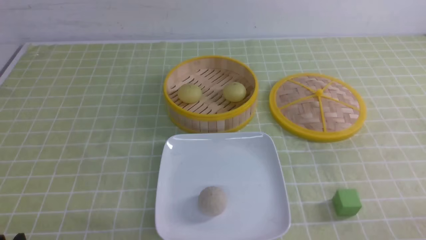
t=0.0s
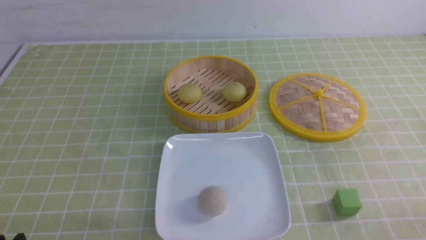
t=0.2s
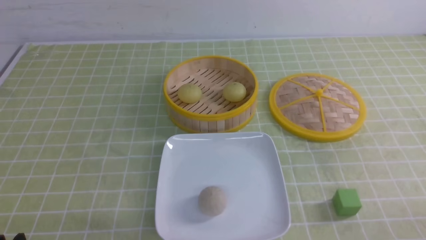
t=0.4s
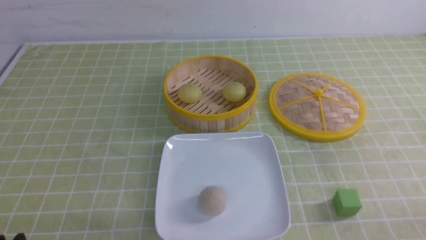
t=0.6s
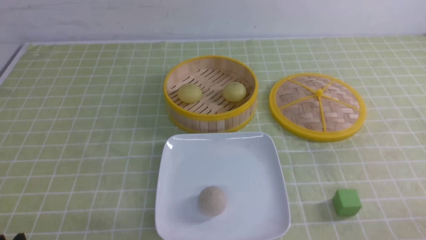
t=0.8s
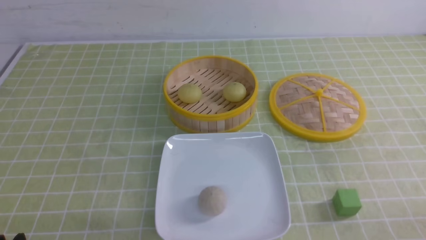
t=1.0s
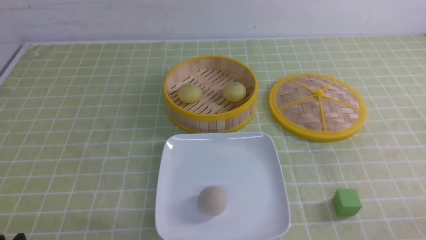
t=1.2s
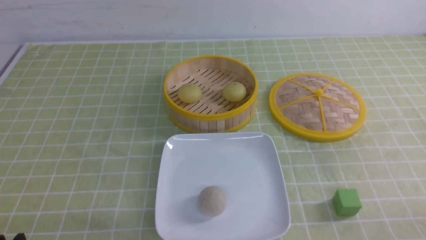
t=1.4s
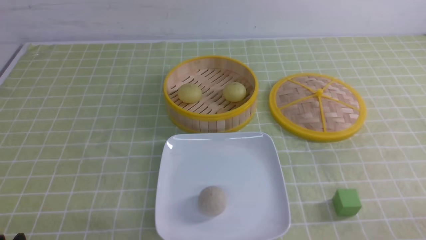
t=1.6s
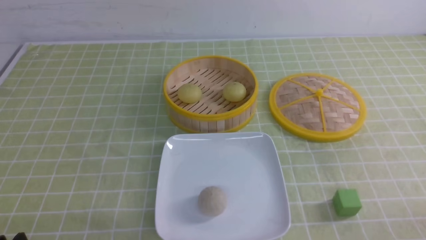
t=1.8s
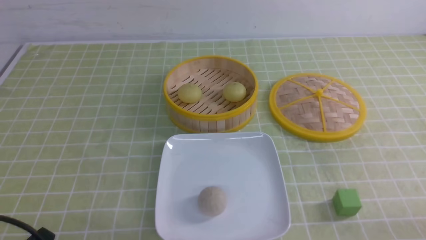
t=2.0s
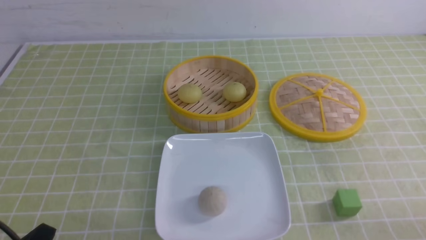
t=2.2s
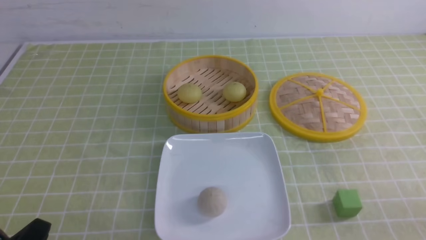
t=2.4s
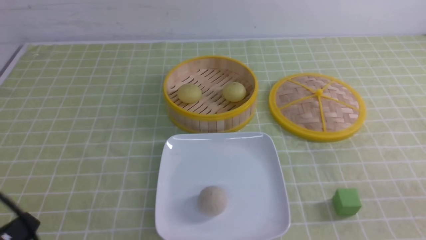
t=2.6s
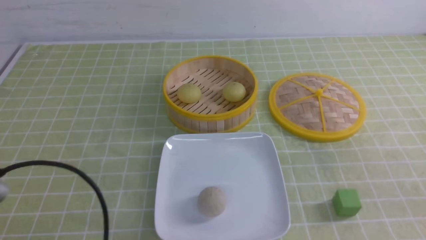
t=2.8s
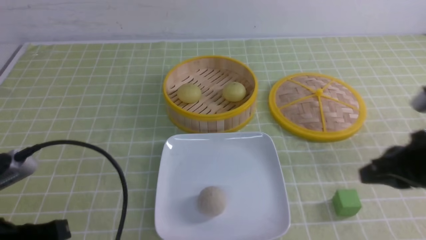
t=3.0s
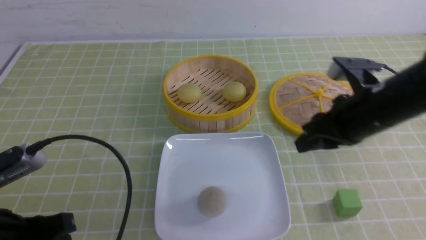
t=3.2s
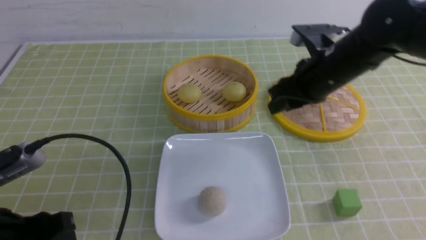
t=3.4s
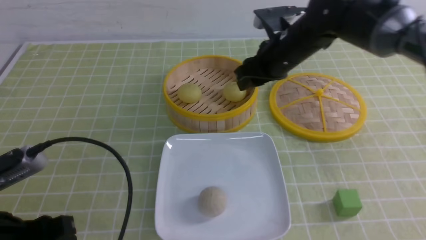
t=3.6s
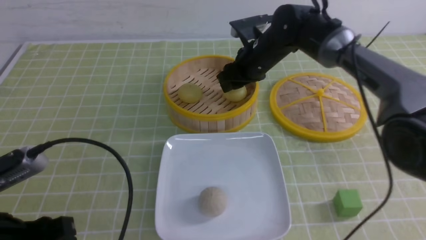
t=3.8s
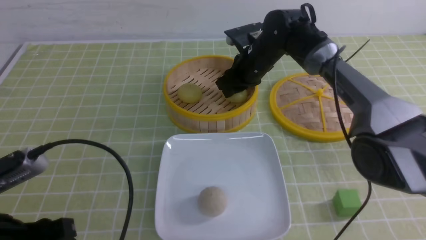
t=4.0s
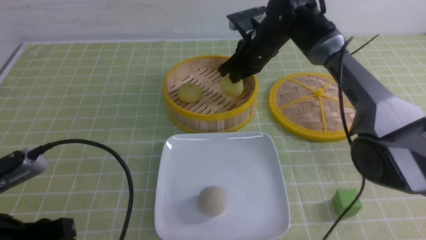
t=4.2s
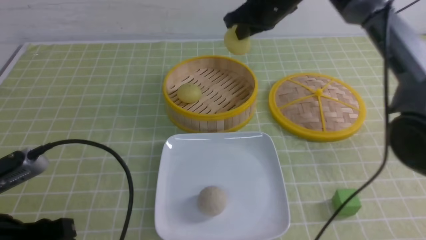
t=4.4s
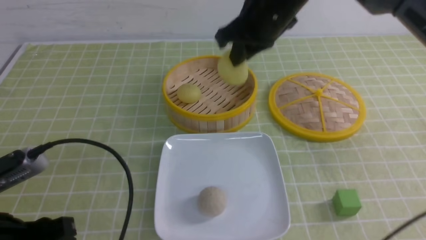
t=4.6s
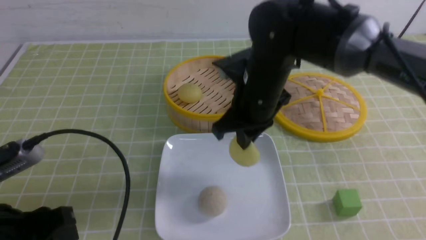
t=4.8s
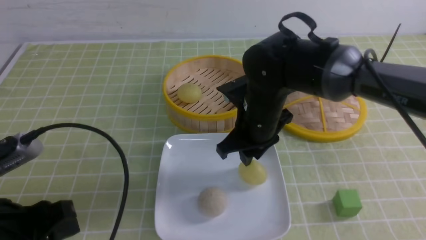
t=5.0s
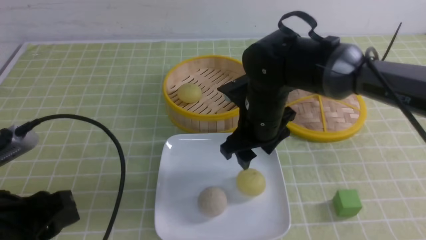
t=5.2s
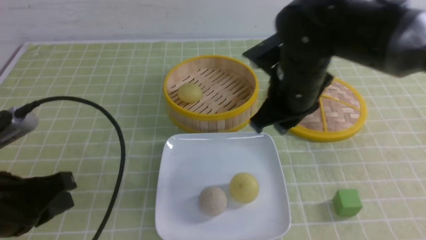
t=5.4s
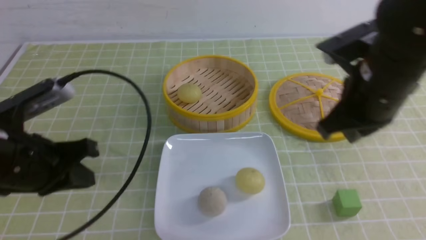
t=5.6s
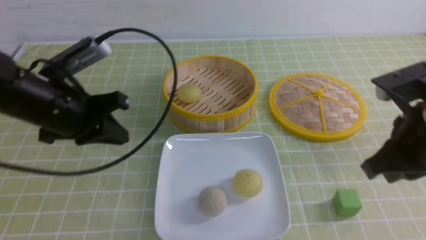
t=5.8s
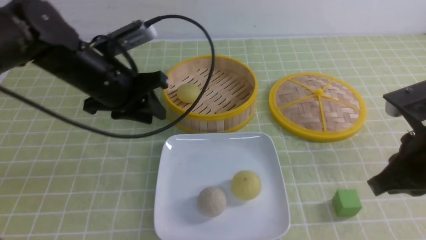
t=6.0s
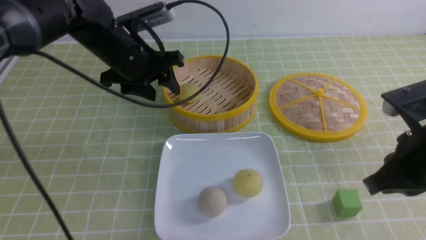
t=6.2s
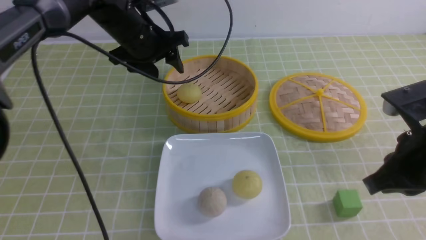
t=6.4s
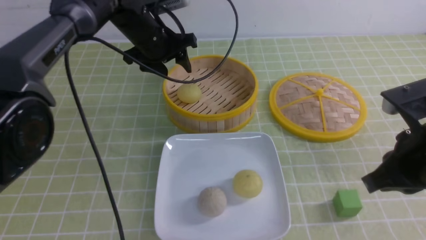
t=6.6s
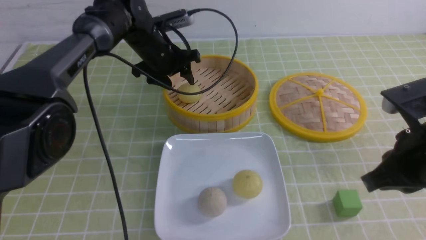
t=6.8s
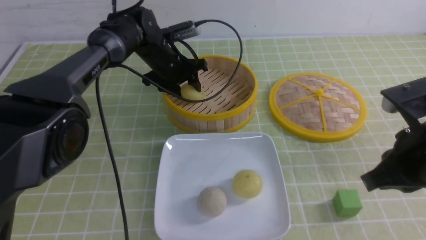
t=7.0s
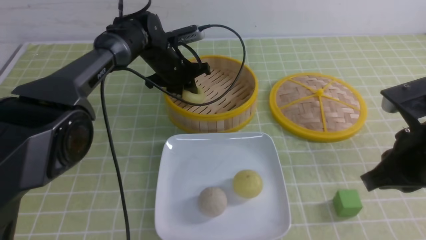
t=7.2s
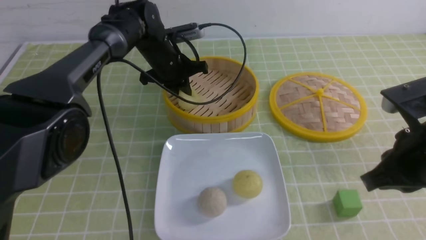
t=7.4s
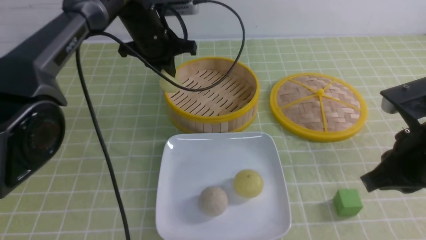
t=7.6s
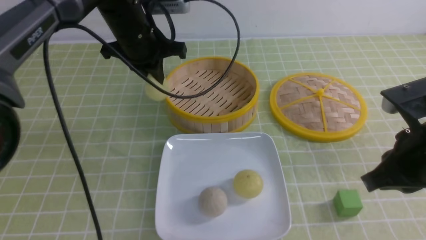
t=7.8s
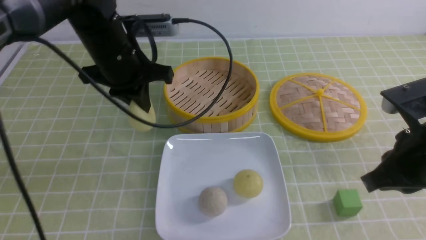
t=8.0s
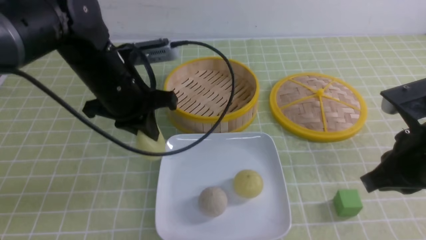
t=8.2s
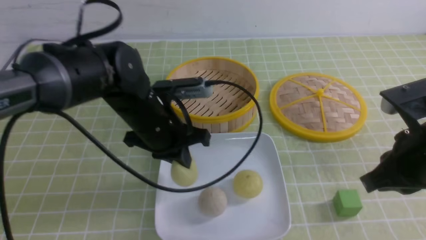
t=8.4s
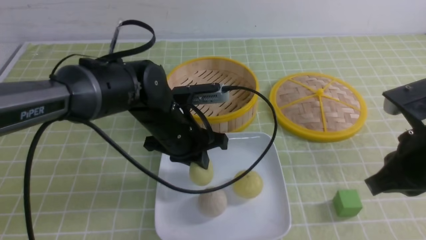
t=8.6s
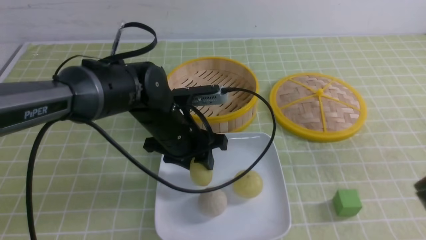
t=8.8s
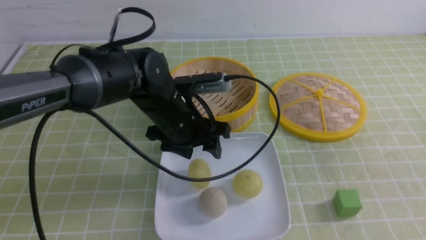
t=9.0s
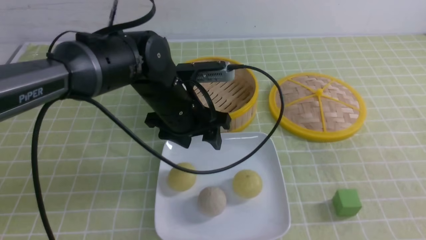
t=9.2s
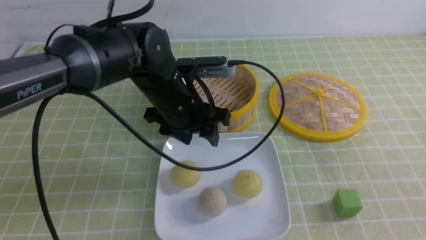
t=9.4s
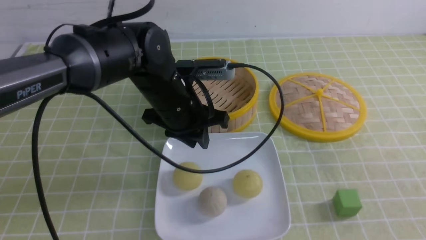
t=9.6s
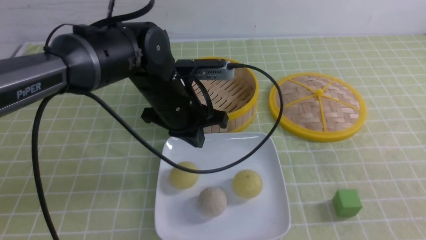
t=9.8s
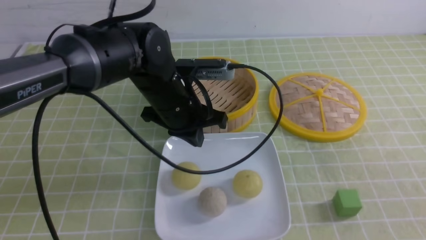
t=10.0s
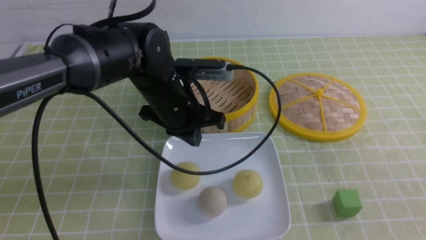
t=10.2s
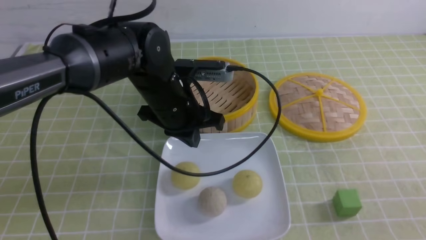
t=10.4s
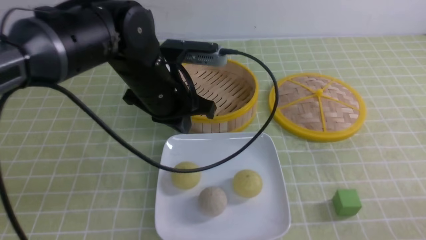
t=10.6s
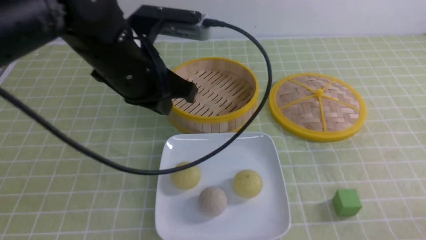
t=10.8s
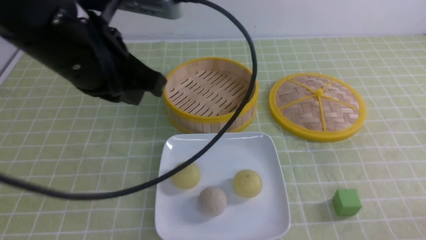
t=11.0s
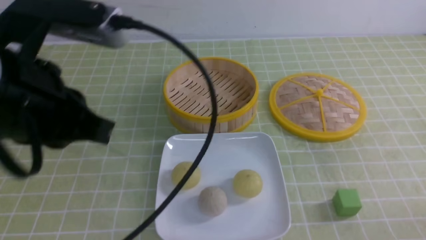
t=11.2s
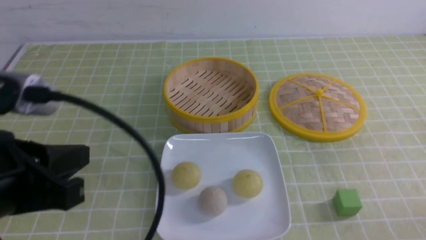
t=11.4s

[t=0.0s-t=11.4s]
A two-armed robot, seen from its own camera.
Step, t=0.0s to t=4.0s: use the right arm to grab the steamed stuffed bun that is closest to it.
Step, t=4.2s to t=5.0s: use the right arm to put the steamed stuffed bun into the plate.
Step, t=5.2s to t=7.0s: use the left arm to grab the steamed stuffed bun that is closest to it.
Step, t=7.2s to t=8.8s: use the left arm to put the steamed stuffed bun into the plate.
t=0.0s to t=1.4s: Both grippers stay about where they are.
t=1.4s to t=2.8s: The left gripper is displaced upward by approximately 10 cm, and closes its fingers.
t=2.8s to t=4.2s: The right gripper is displaced forward and to the left by approximately 40 cm, and opens, then closes once more. The left gripper opens its fingers.
t=4.2s to t=5.6s: The right gripper shifts some 25 cm backward, and opens, then closes once more. The left gripper heads forward, covering roughly 10 cm, and closes.
t=5.6s to t=7.2s: The left gripper shifts some 30 cm forward and to the right, and opens and closes again, while the right gripper is displaced backward and to the right by some 10 cm.
t=7.2s to t=8.6s: The left gripper shifts roughly 20 cm backward.
t=8.6s to t=10.0s: The right gripper moves backward and to the right, about 15 cm. The left gripper opens and closes again.
t=10.0s to t=11.4s: The right gripper is displaced downward by about 10 cm, while the left gripper shifts approximately 25 cm backward, to the left and upward.

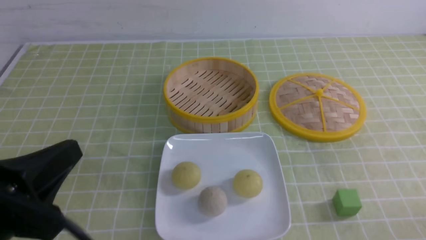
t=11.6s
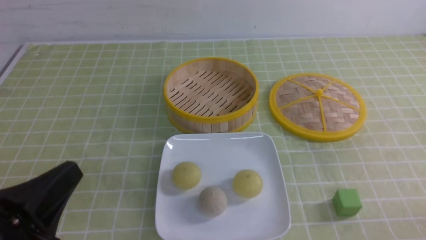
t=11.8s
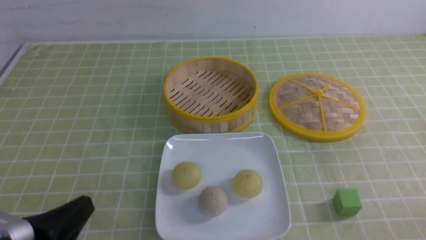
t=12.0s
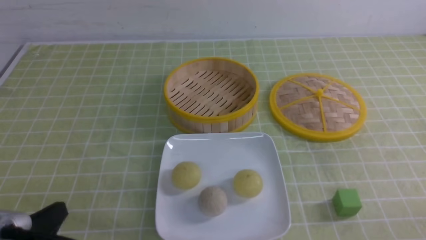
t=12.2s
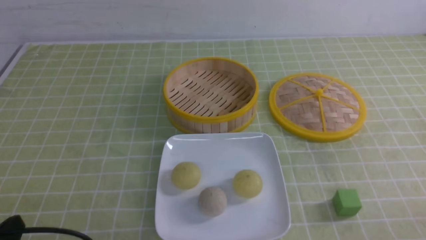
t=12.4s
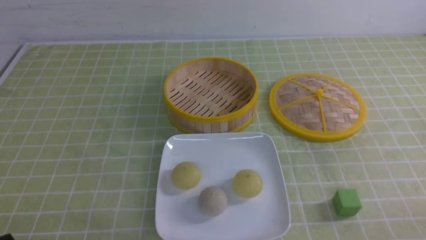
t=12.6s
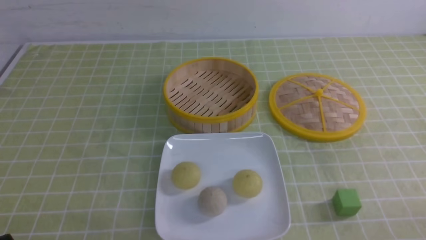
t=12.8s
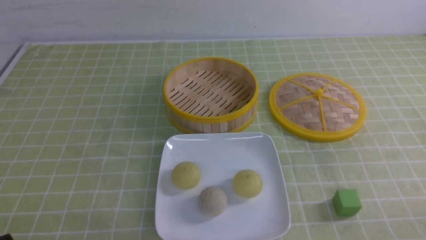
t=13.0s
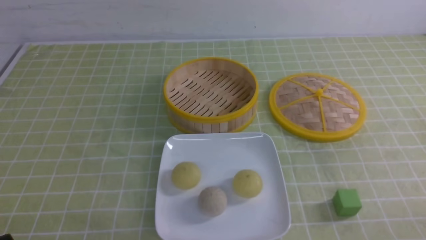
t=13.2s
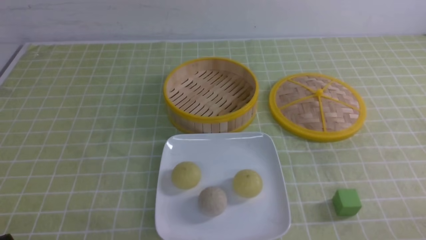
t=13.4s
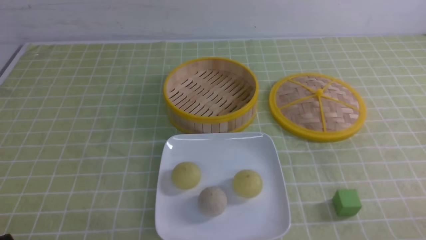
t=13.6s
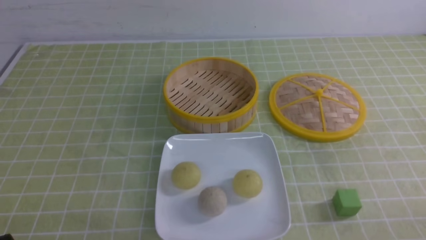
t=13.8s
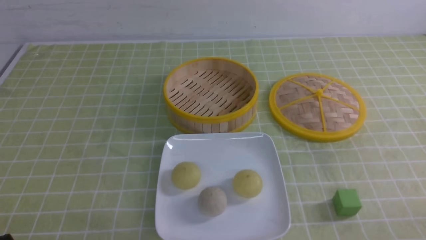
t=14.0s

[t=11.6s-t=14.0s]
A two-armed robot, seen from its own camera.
t=11.6s to t=12.8s: The left gripper travels downward and to the left by approximately 15 cm.
t=12.8s to t=14.0s: The two grippers keep their place.

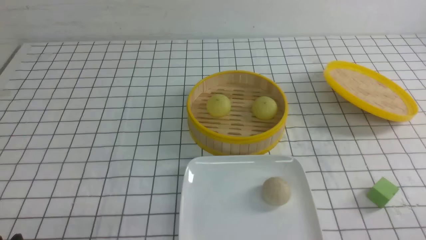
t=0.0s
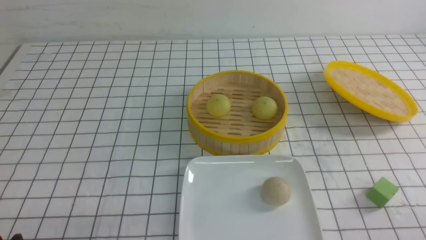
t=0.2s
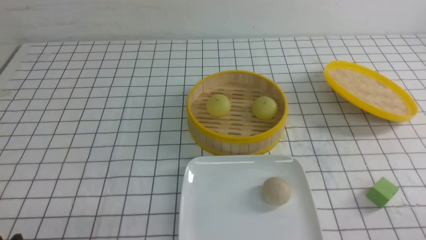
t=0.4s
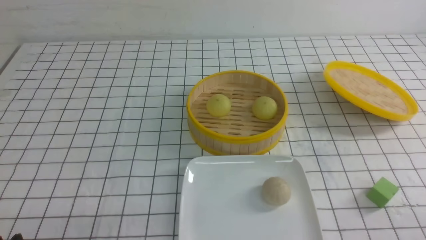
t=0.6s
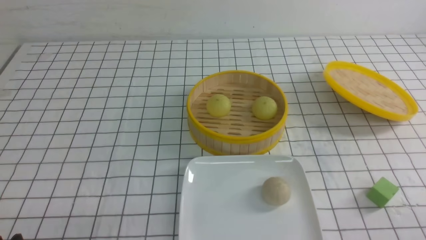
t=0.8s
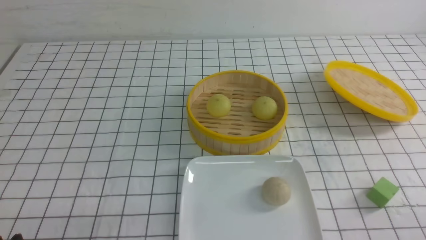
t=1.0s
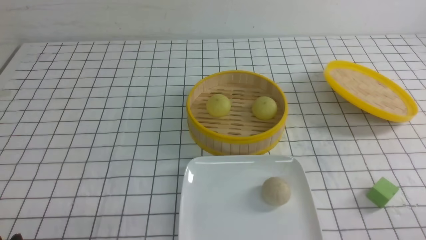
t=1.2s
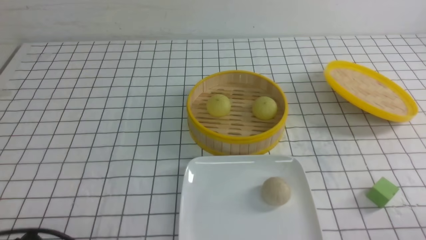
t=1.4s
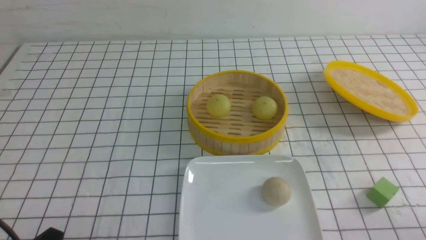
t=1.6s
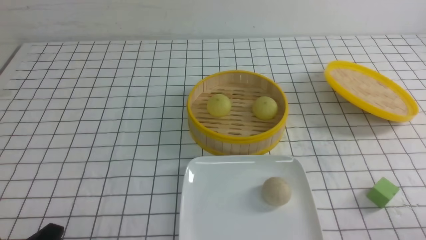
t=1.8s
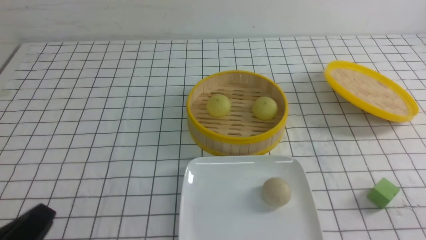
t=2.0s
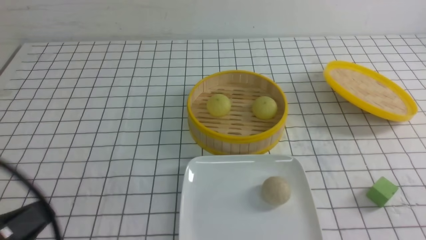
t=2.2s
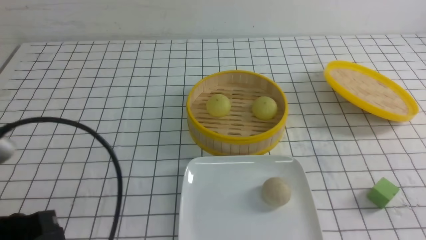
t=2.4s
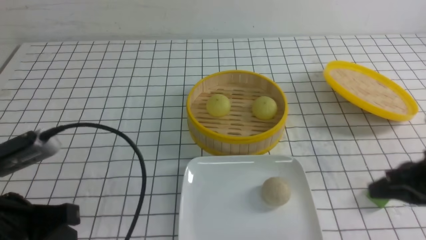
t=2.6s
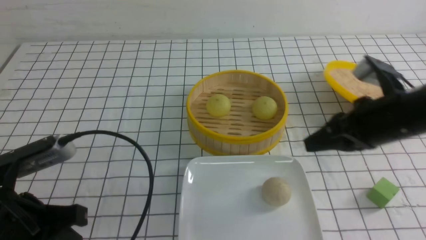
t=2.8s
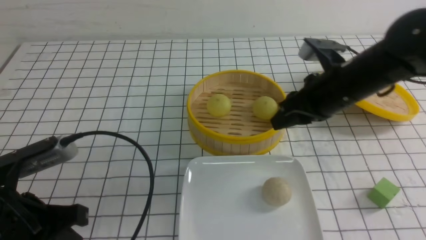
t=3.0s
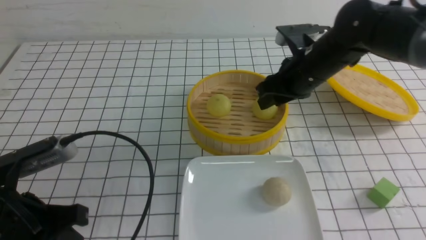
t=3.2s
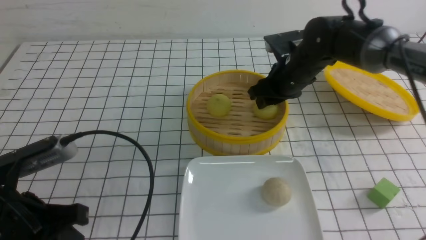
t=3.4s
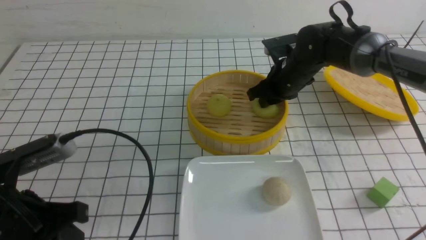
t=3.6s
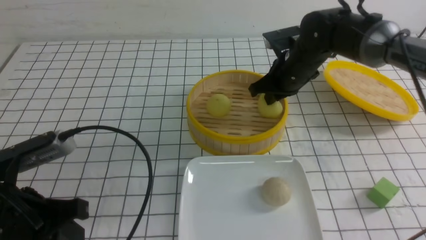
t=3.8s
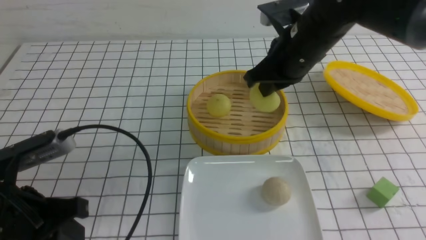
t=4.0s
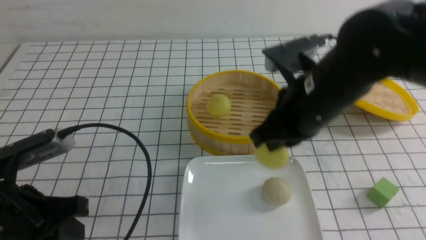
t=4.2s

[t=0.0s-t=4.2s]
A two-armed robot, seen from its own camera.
Step, t=0.0s to t=3.6s: use the right arm to grab the steamed stuffed bun that is closest to it.
t=1.4s to t=2.8s: The left gripper travels forward and upward by approximately 10 cm, and closes its fingers; the right gripper moves forward, upward and to the left, about 25 cm, and closes its fingers.
t=2.8s to t=4.2s: The right gripper heads to the left, covering roughly 10 cm, moves about 15 cm forward and comes back, and opens and closes again.
